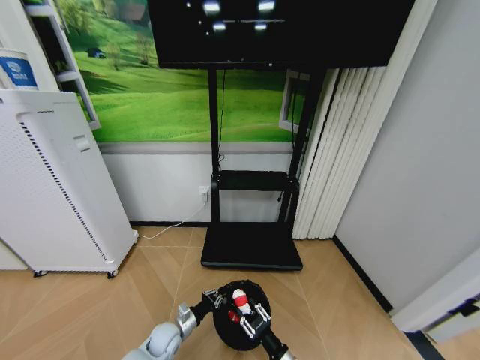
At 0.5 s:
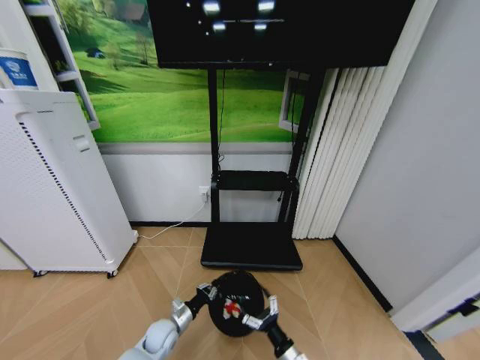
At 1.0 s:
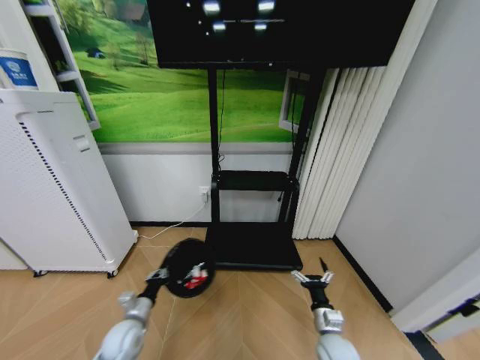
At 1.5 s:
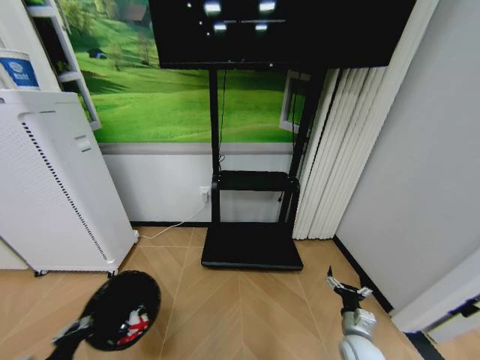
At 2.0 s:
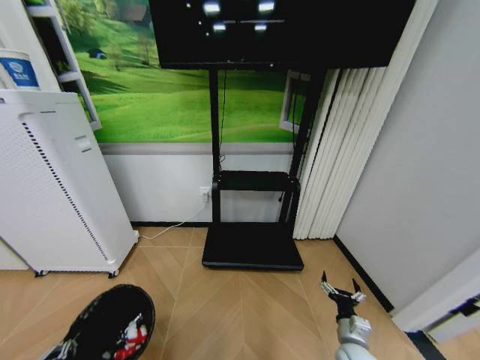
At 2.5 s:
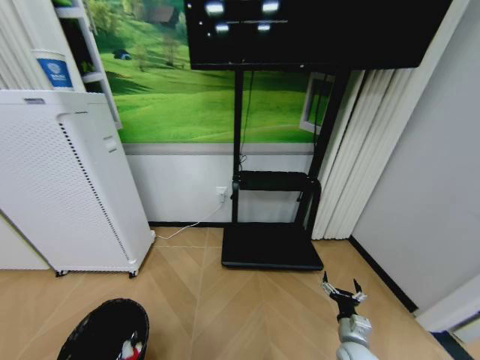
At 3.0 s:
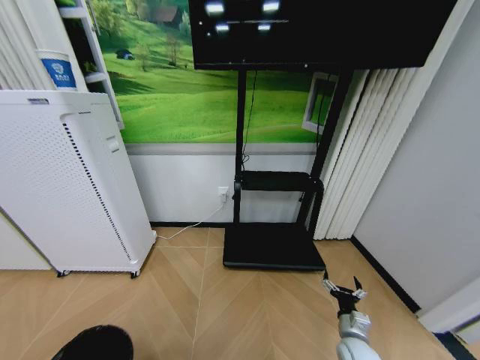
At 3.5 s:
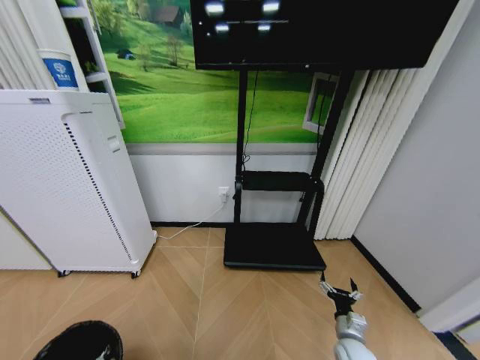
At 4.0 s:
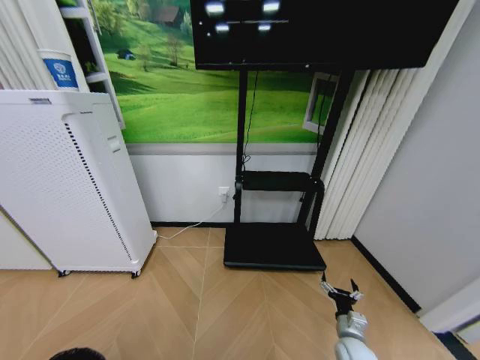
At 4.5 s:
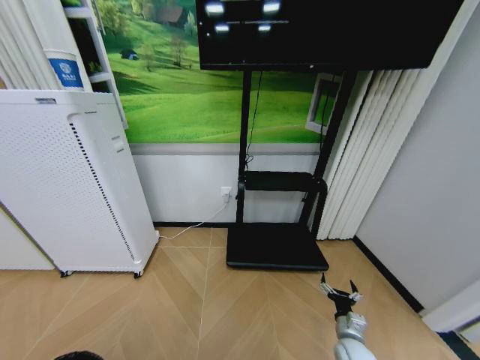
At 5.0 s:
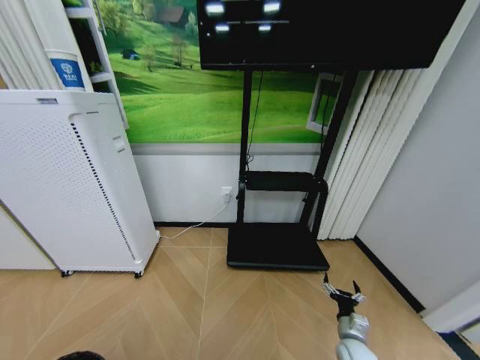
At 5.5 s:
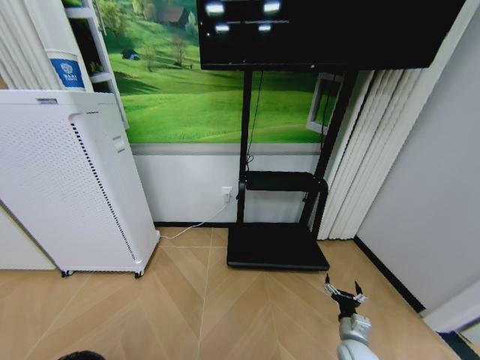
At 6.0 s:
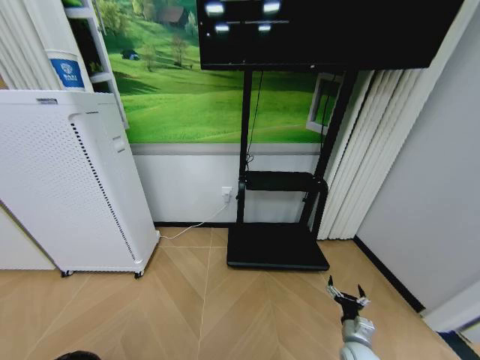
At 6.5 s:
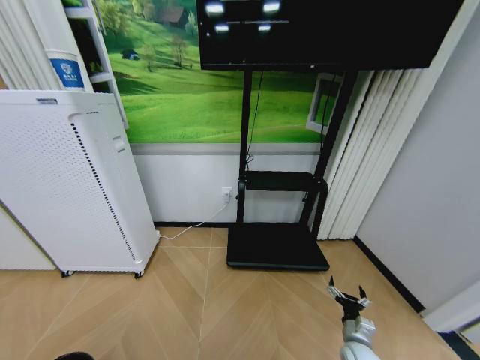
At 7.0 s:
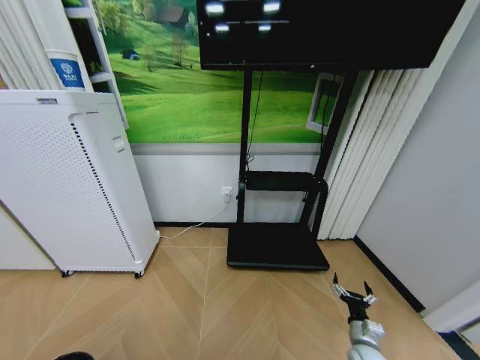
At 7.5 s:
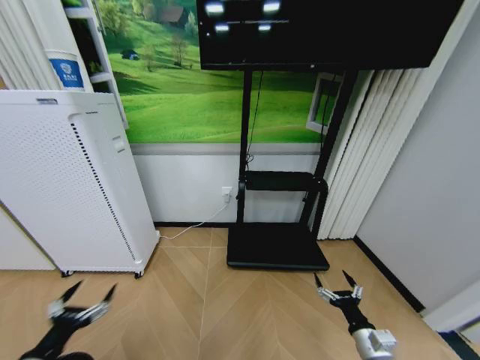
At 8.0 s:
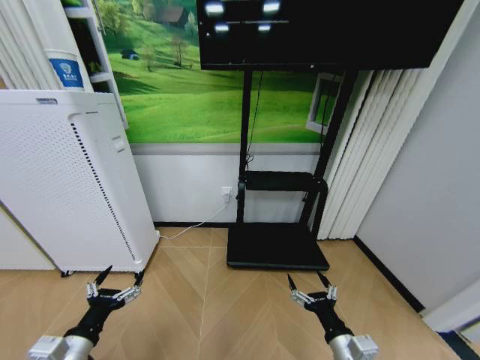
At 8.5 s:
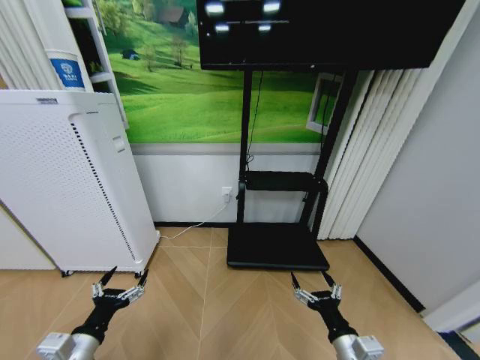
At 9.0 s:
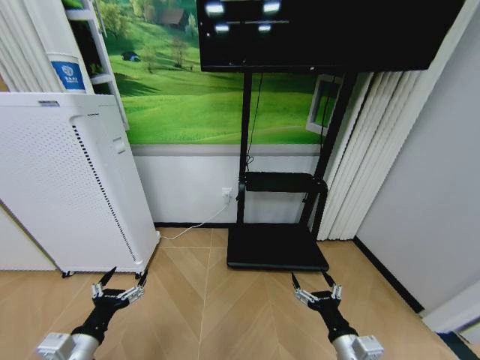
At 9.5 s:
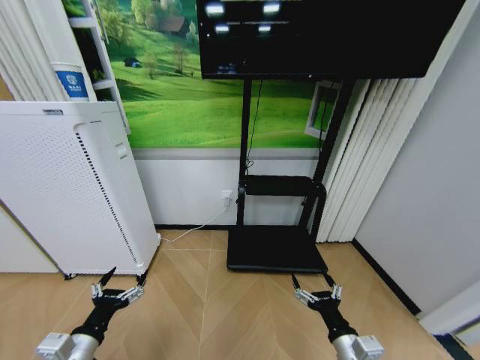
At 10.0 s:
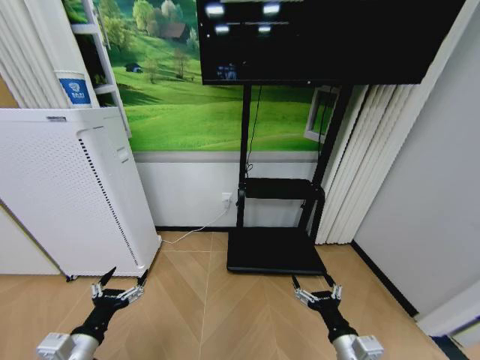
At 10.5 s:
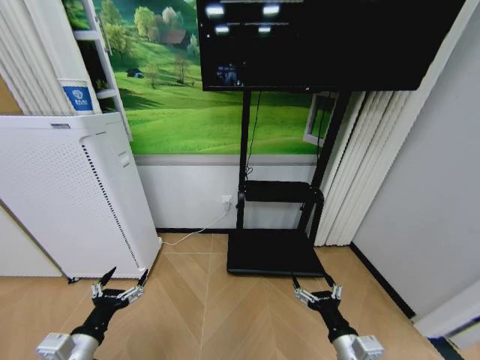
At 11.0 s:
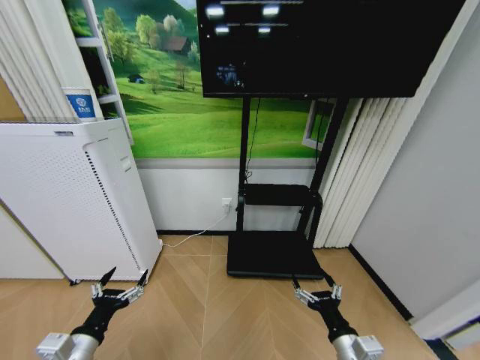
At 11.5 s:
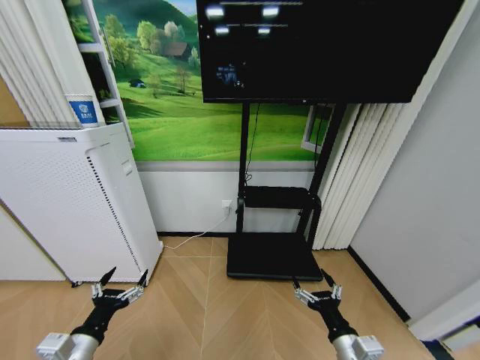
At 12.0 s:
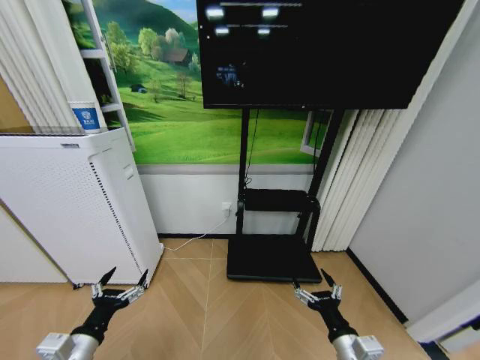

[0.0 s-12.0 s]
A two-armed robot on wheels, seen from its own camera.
Task of the whole recording: Pick up the trash bin and place the garbage on the floor into it.
0.0 to 2.0 s: The right gripper shifts roughly 15 cm to the right and forward, and opens; the left gripper travels backward, to the left and upward by approximately 35 cm.
2.0 to 4.0 s: The left gripper shifts some 15 cm backward.
4.0 to 6.0 s: The left gripper is displaced downward by some 10 cm.
6.0 to 8.0 s: The right gripper heads upward, to the left and backward, covering approximately 20 cm; the left gripper is displaced forward, upward and to the right by about 30 cm, and opens.
8.0 to 10.0 s: Both grippers stay put.
